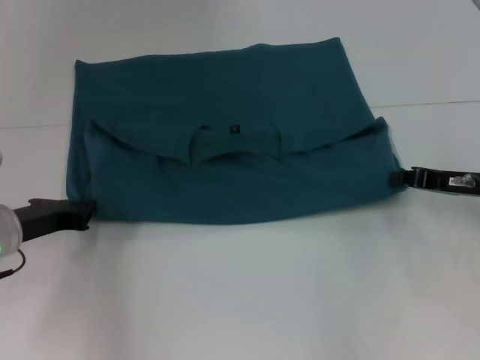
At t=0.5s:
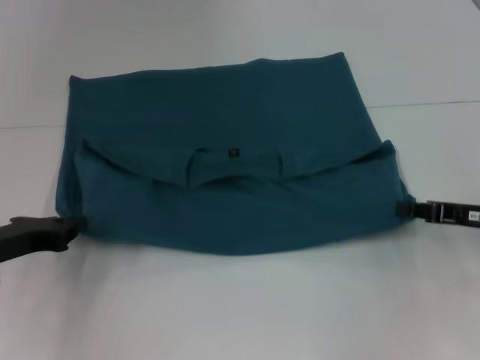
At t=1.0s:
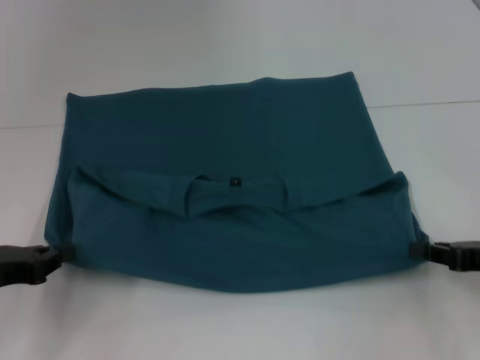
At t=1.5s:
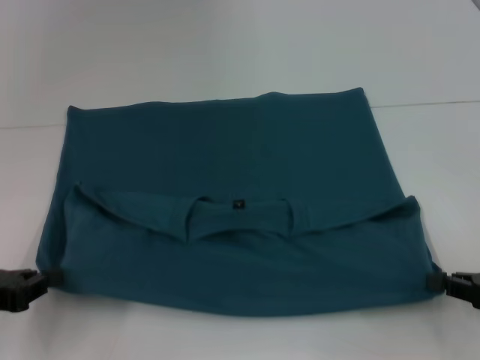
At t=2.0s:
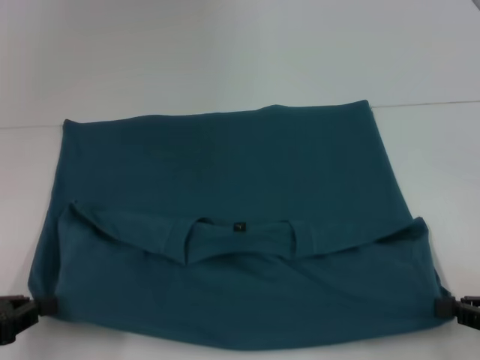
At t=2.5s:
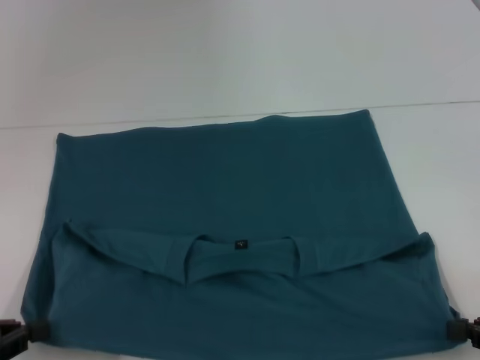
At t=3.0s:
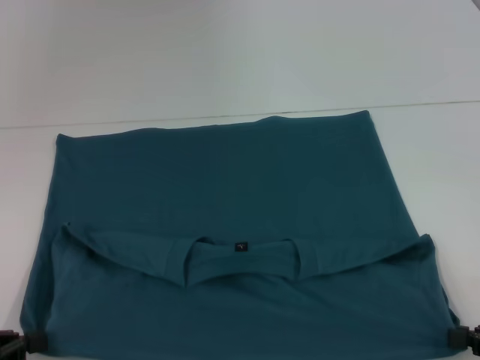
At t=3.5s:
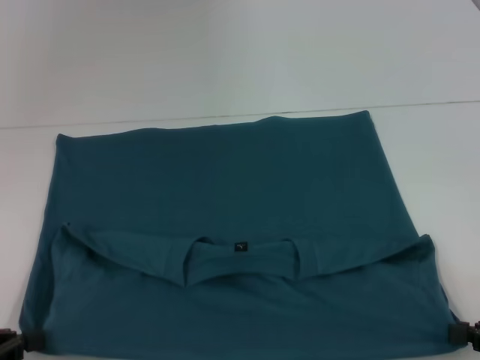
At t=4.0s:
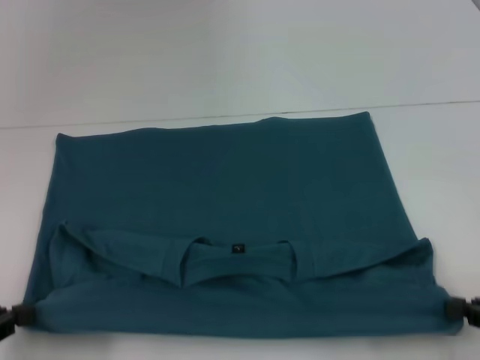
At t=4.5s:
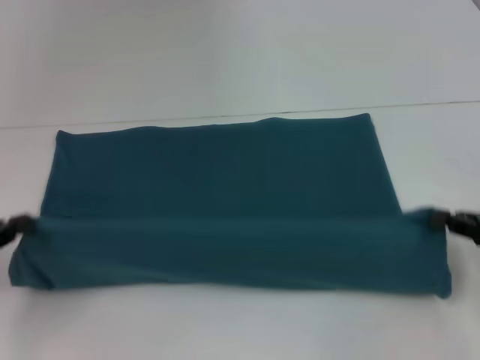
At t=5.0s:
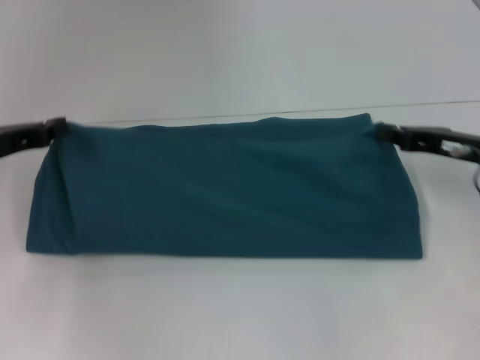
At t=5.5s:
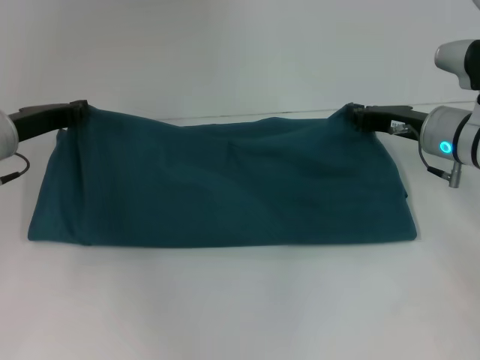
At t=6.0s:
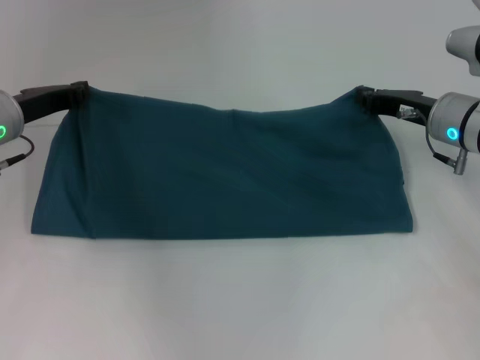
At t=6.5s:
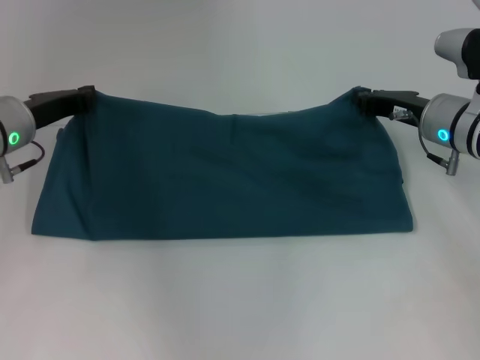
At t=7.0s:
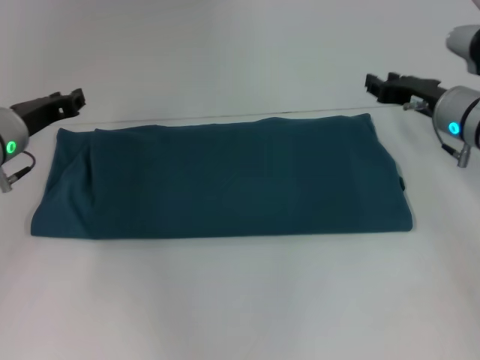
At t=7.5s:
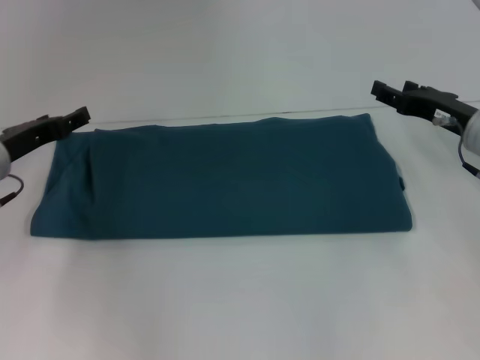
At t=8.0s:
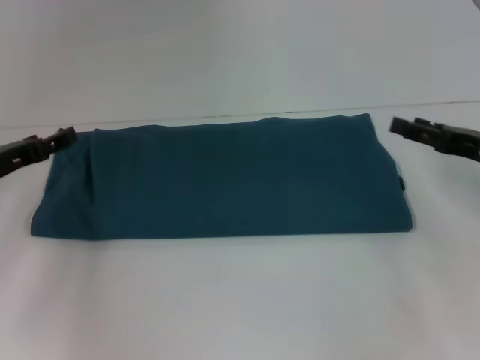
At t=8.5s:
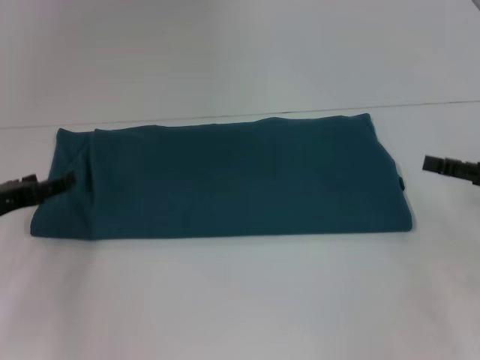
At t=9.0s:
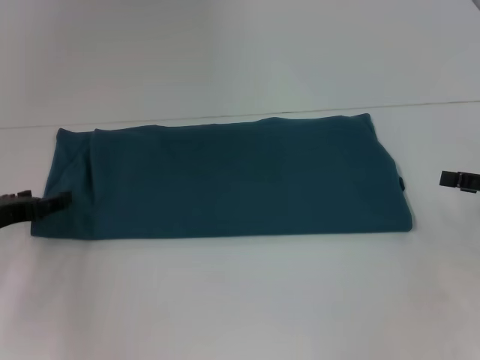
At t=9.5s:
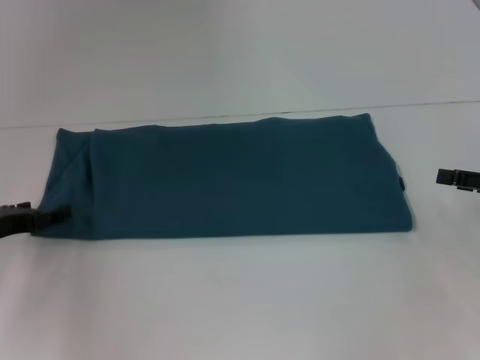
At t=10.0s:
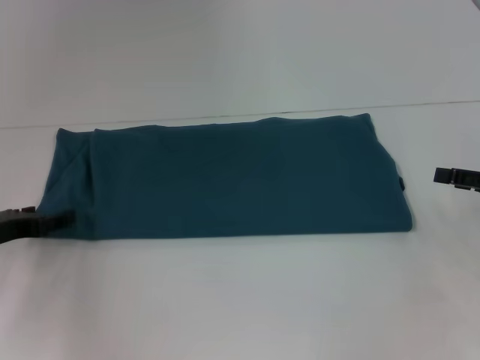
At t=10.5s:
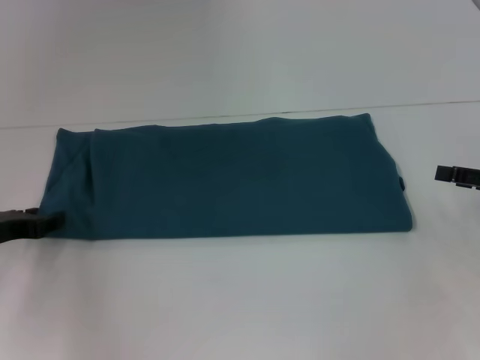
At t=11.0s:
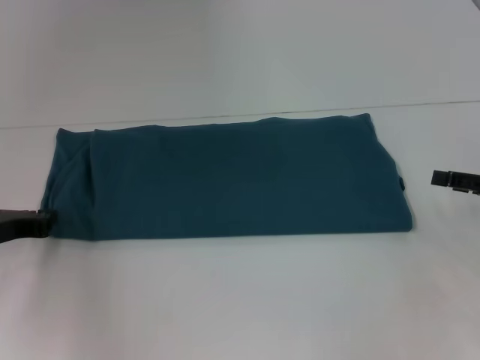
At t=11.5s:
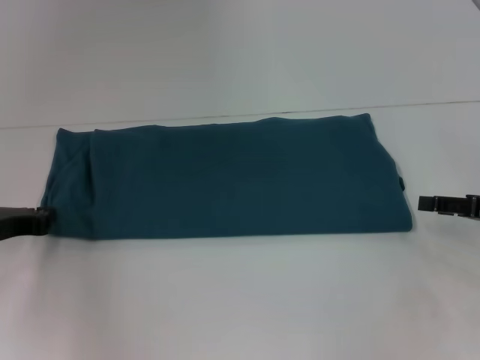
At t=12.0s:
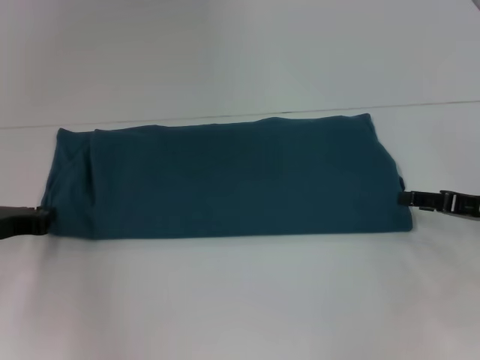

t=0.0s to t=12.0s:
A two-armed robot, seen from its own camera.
Step, t=0.0s to t=3.0s: Pull the clothes with your left hand.
Step, t=0.0s to t=3.0s: Pull the clothes with your right hand.
Step, t=3.5s to t=7.0s: Fold the clothes to the right.
t=0.0s to t=2.0s: The left gripper travels backward and to the left by roughly 15 cm. The right gripper is displaced backward by roughly 15 cm.
t=2.0s to t=4.0s: The grippers make only small movements.
t=4.0s to t=6.0s: The right gripper moves forward and to the left, approximately 25 cm; the left gripper moves forward and to the right, about 25 cm.
t=6.0s to t=8.0s: The left gripper heads backward, covering approximately 5 cm, and opens up, while the right gripper shifts some 10 cm backward and to the right, and opens its fingers.
t=8.0s to t=10.0s: The right gripper shifts by some 5 cm.

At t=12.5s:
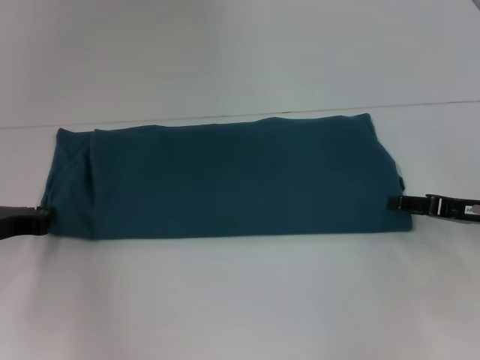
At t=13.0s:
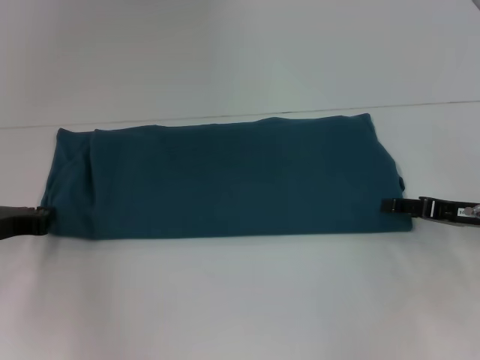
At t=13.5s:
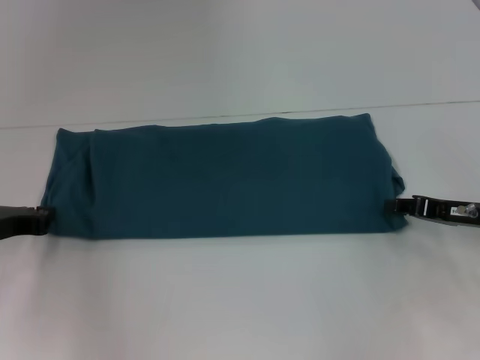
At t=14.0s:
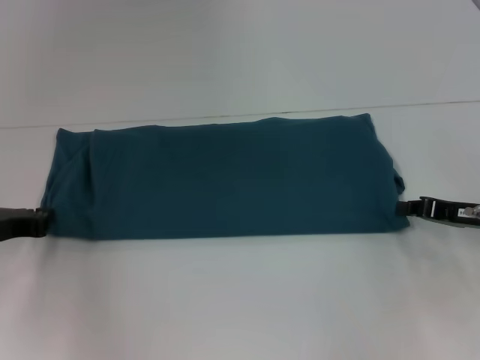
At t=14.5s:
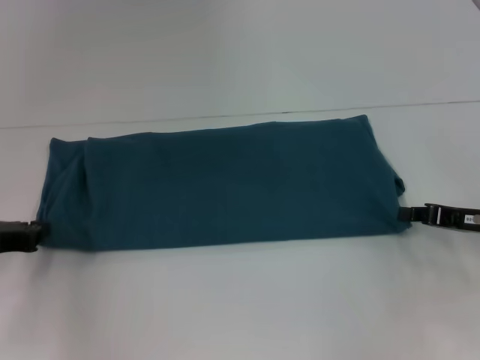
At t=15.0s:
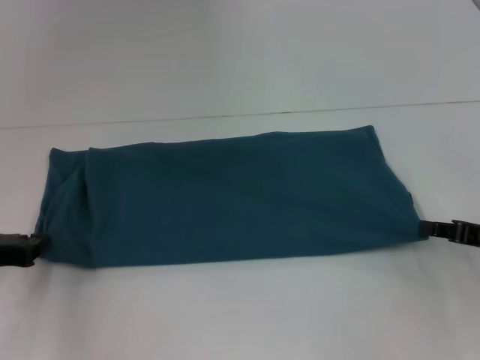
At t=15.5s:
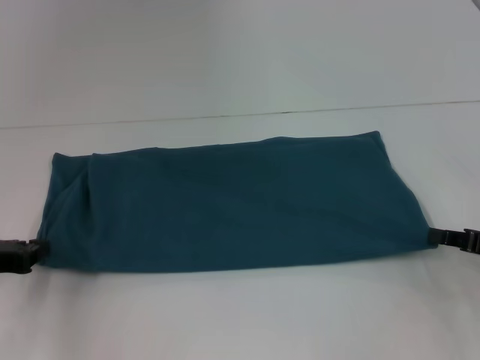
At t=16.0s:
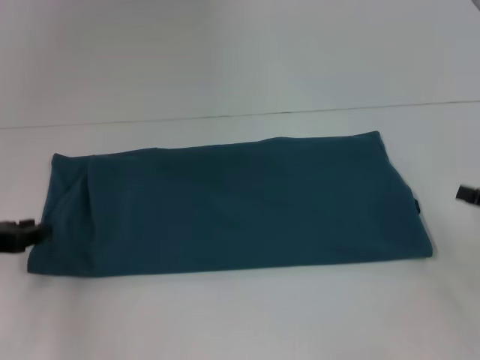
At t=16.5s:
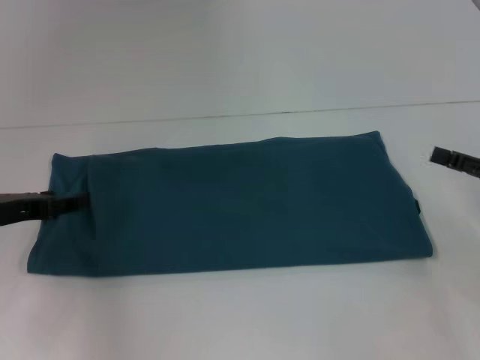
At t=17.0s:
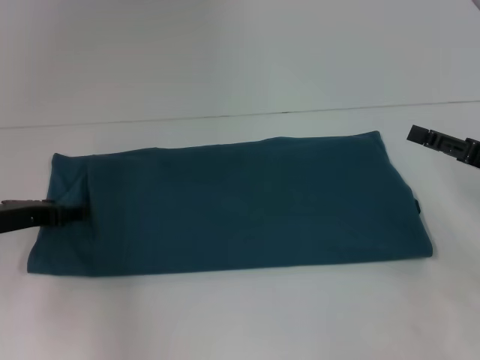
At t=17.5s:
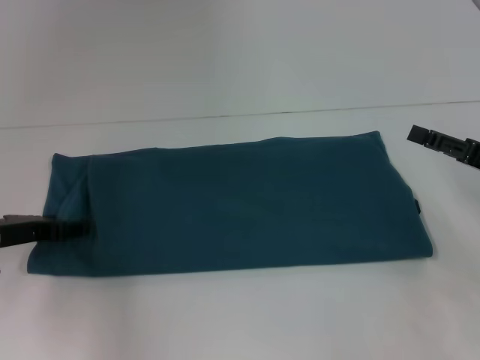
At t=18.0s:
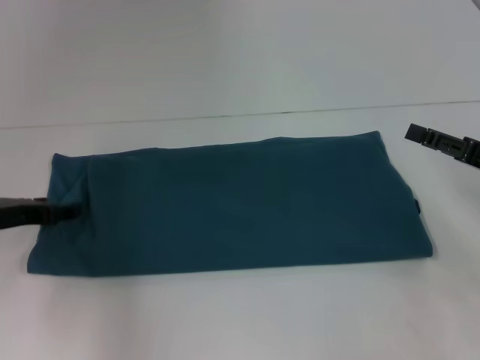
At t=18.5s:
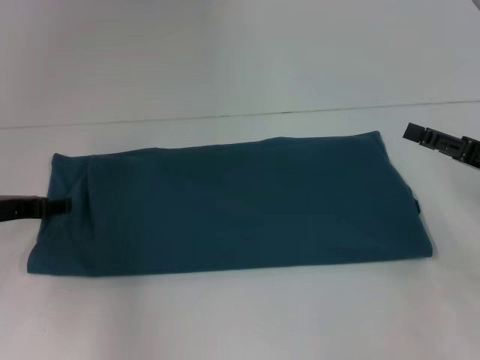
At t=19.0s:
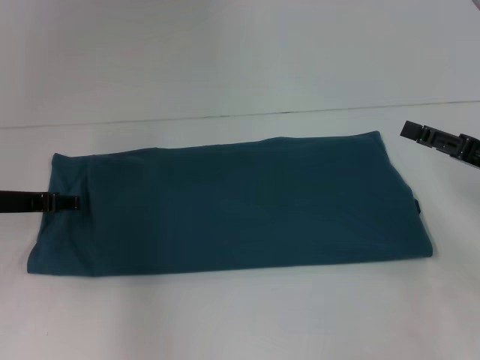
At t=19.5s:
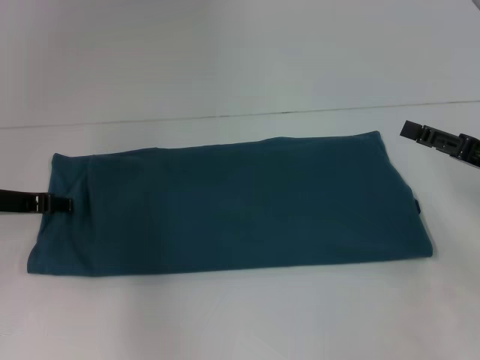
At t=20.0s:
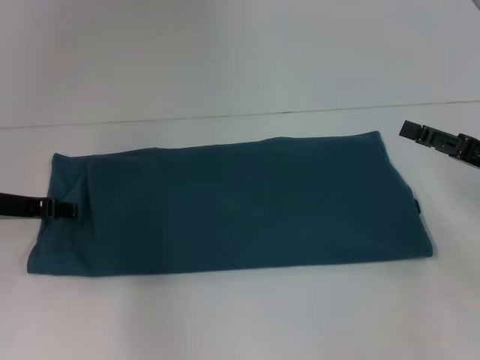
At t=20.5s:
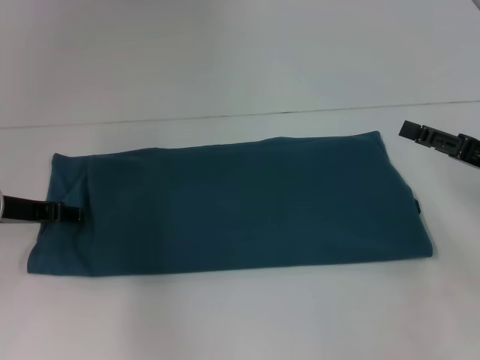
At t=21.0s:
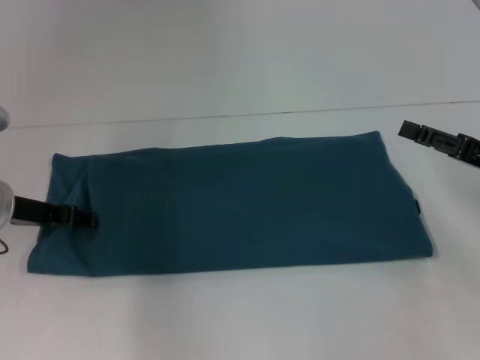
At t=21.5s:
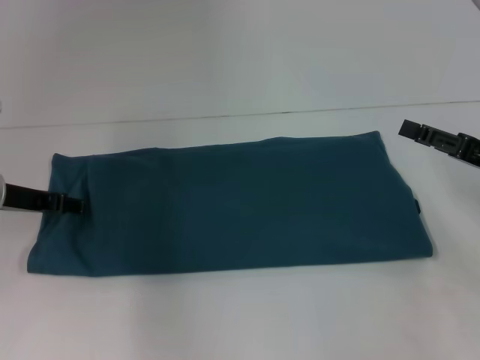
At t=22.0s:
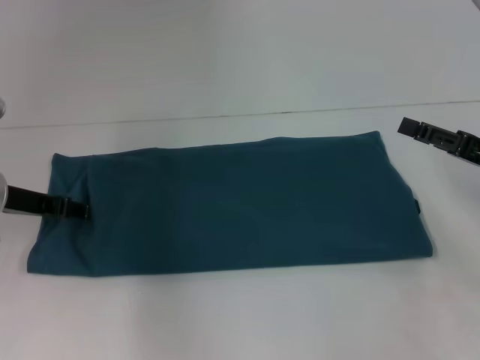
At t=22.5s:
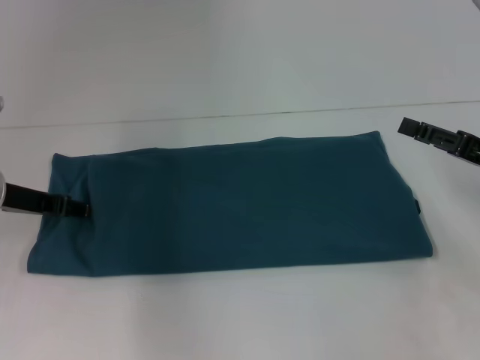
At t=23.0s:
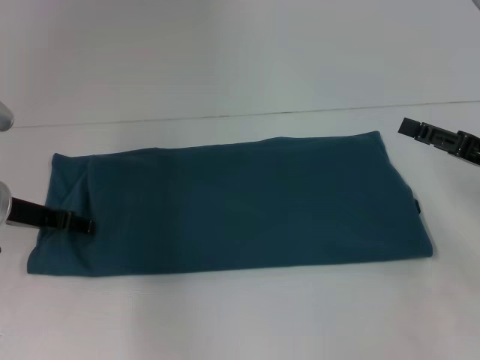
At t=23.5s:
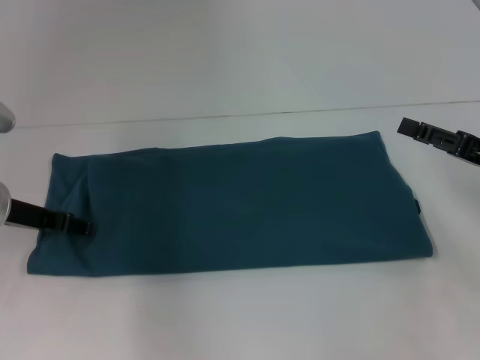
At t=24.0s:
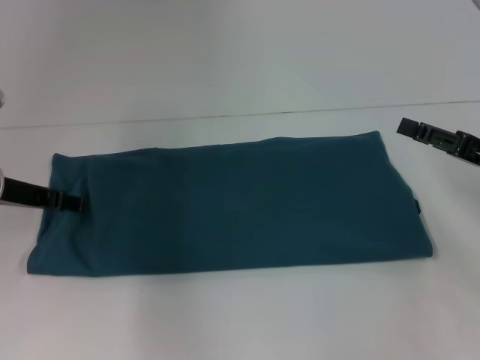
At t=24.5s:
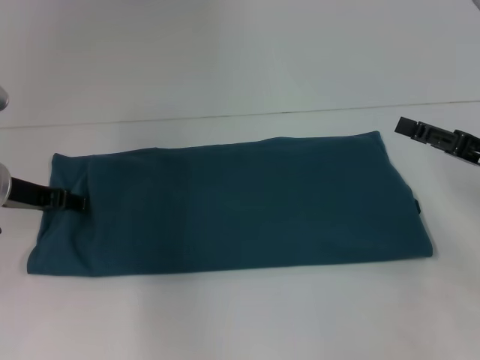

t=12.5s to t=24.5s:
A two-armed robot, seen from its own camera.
t=12.5s to t=14.5s: The right gripper closes.
t=14.5s to t=16.5s: The right gripper shifts by approximately 5 cm, and opens its fingers. Meanwhile the left gripper opens up.
t=16.5s to t=22.5s: The grippers stay close to where they were, moving slightly.
t=22.5s to t=24.5s: The grippers move only a little.

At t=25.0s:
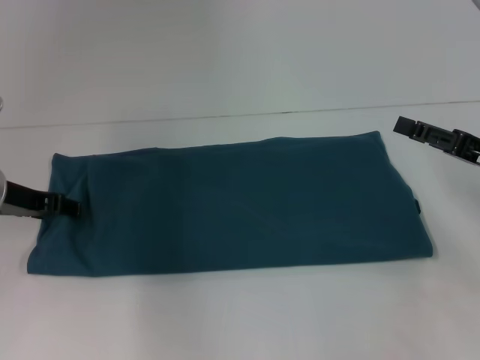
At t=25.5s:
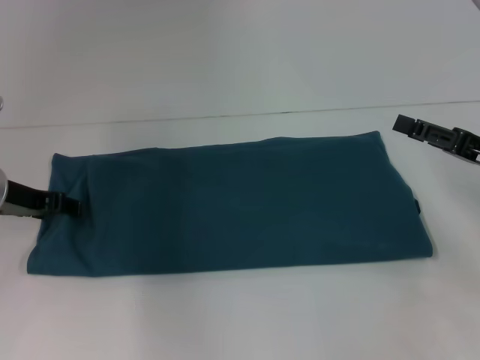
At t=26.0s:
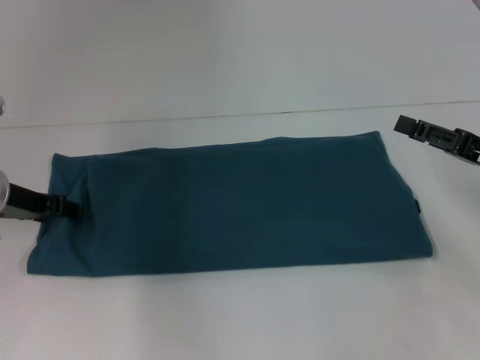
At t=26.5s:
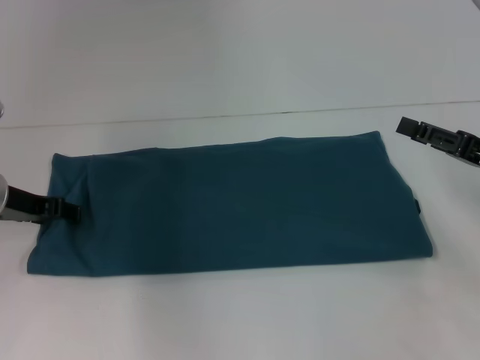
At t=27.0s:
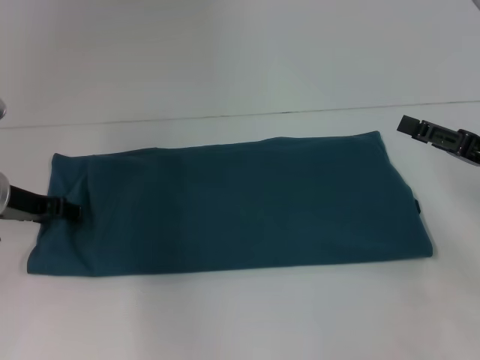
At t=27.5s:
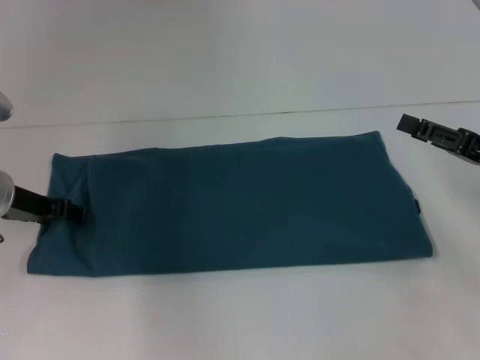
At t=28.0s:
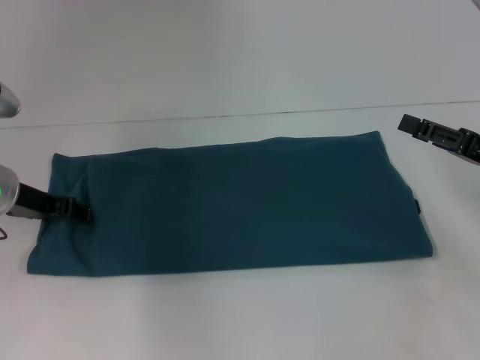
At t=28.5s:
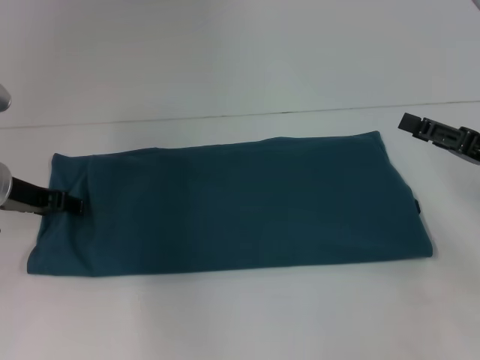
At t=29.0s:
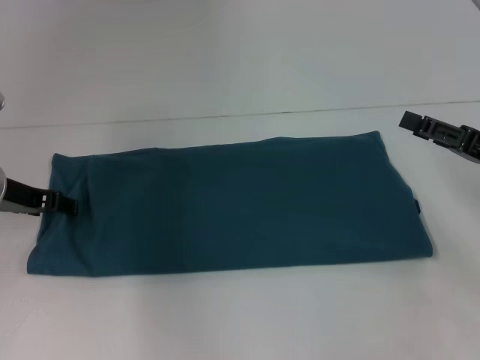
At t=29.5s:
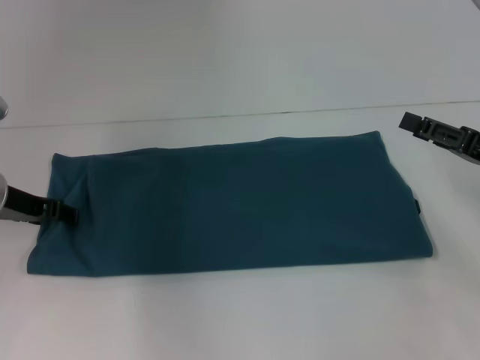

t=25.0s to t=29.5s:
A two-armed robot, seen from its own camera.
t=25.0s to t=29.5s: The two grippers keep their place.
